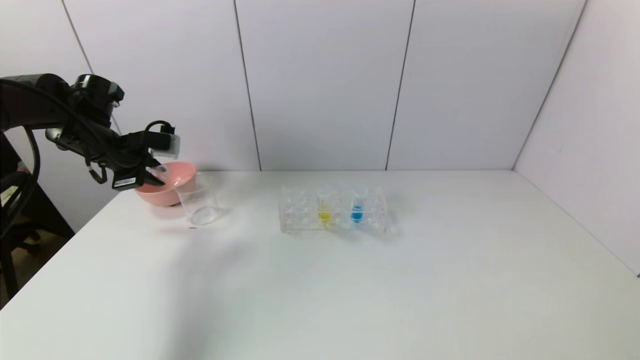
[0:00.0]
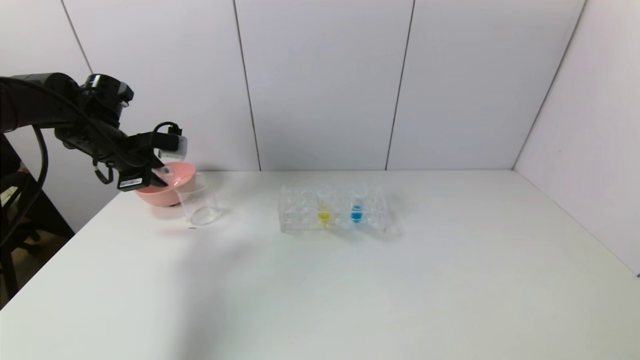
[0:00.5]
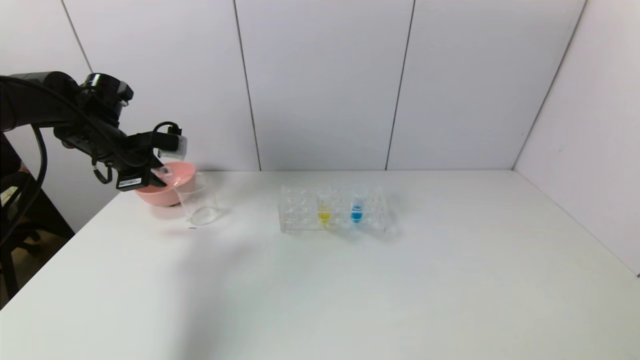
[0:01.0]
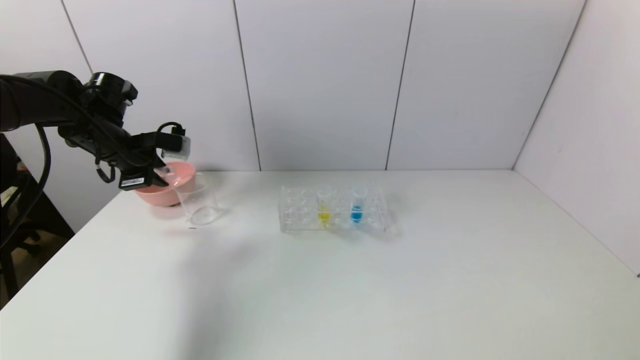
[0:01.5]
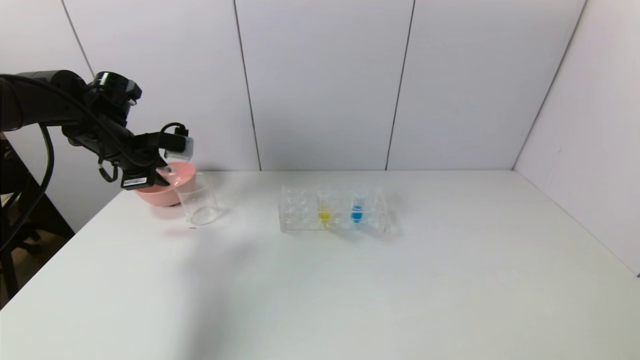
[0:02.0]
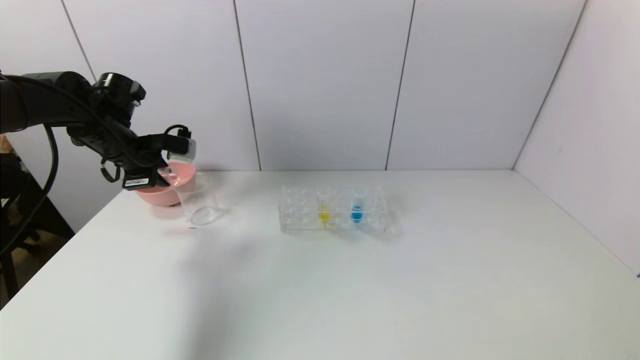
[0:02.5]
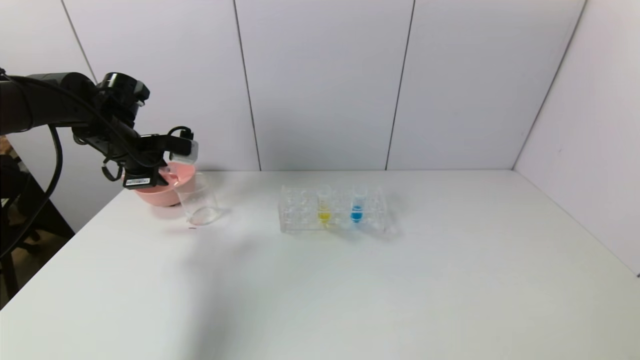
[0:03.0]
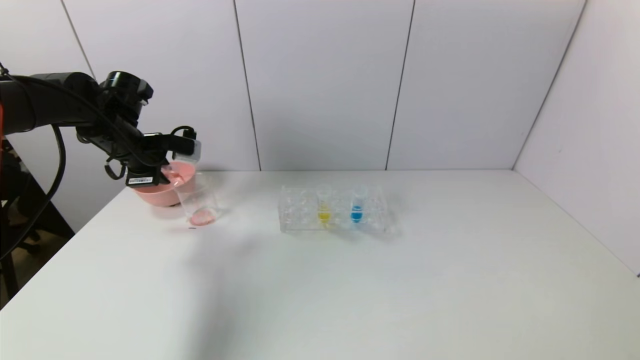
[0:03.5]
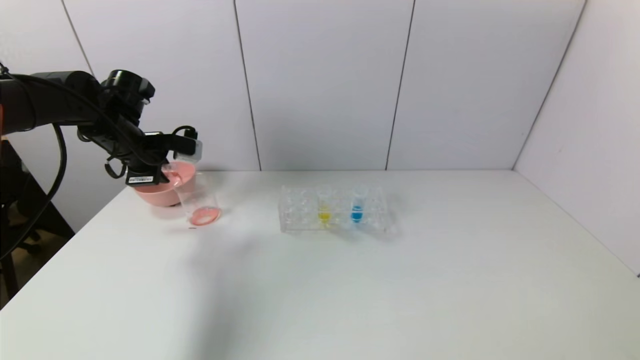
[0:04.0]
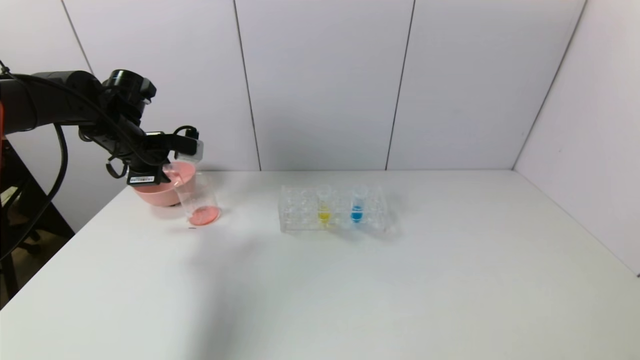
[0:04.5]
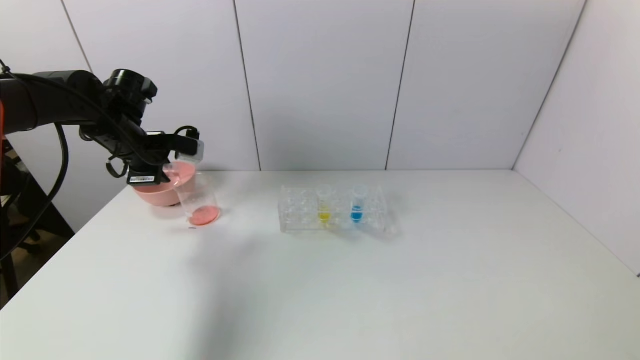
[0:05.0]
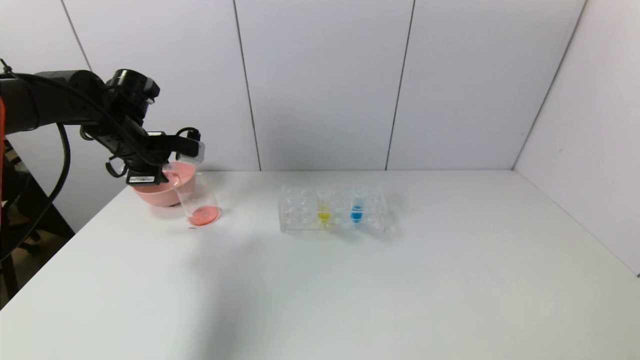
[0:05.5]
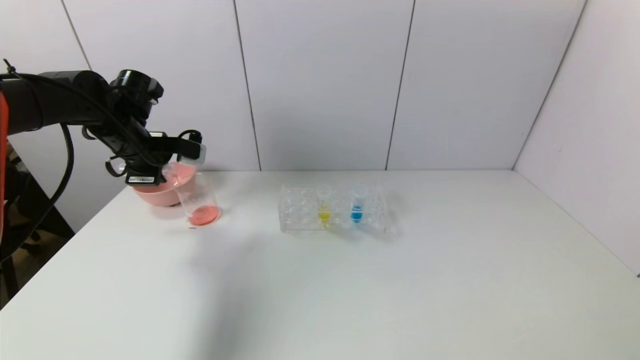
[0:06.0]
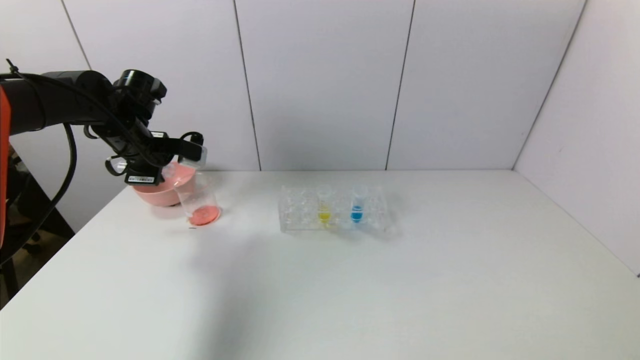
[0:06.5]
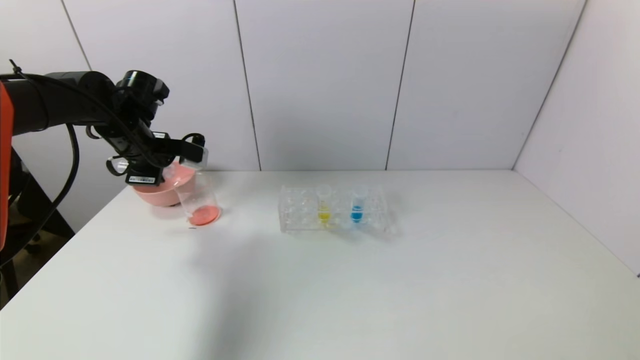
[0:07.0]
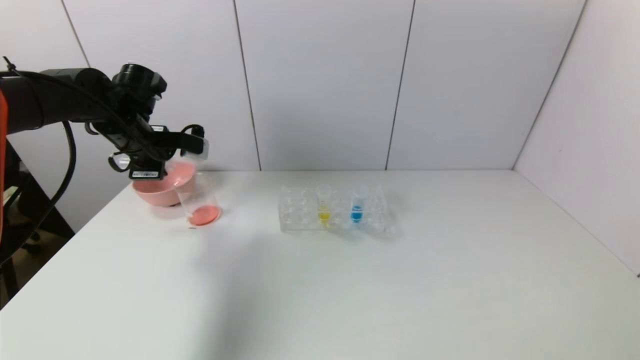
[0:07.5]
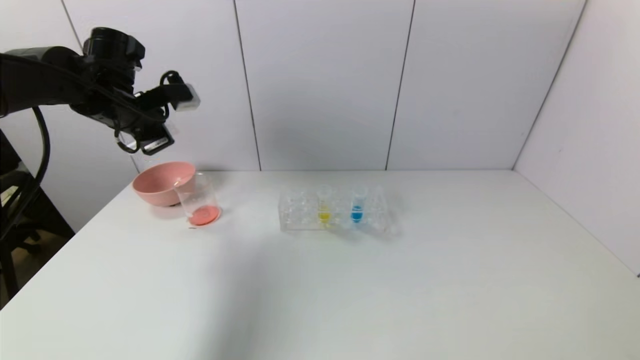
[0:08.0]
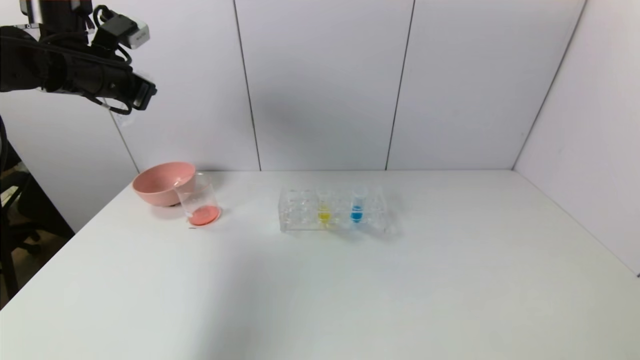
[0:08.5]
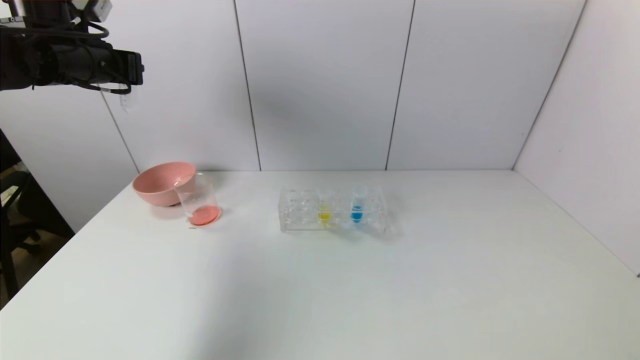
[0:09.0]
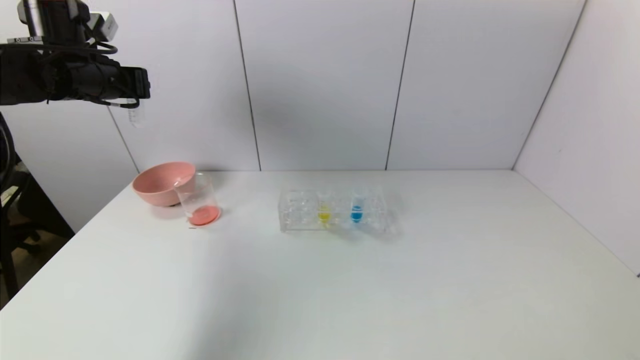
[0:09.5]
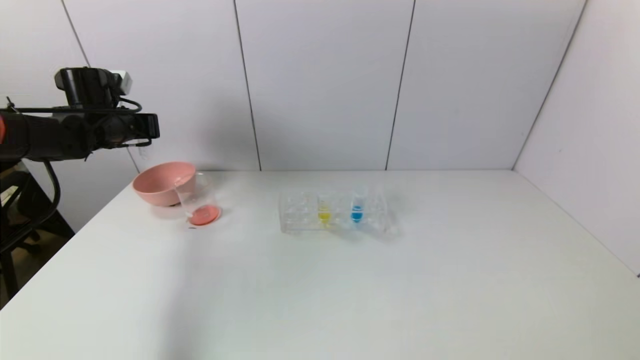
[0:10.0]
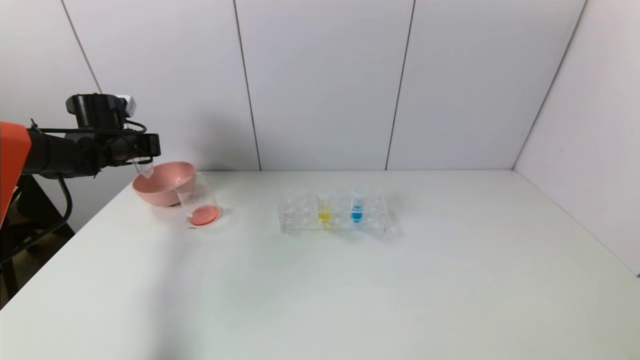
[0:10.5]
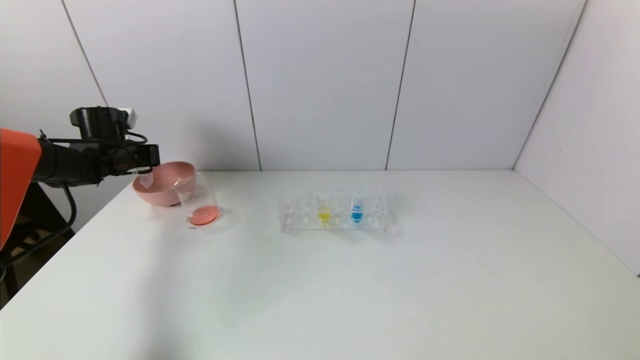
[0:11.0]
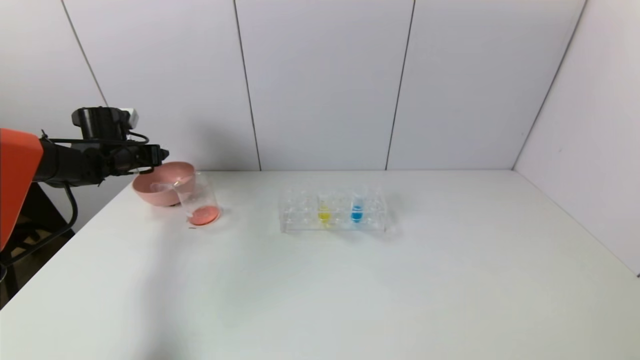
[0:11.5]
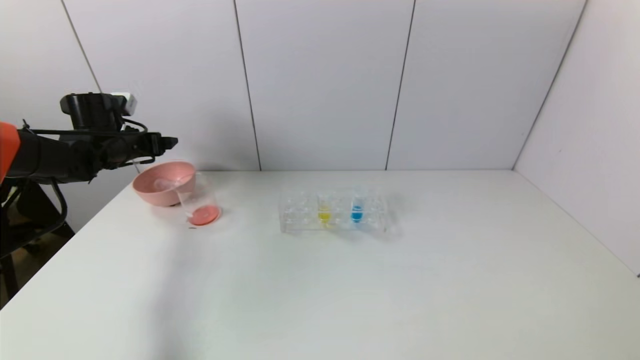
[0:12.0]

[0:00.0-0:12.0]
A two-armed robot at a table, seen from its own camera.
Task of the whole recording: pick up the test tube with red pigment and the test tube with blue pigment by grippers and pour them into the container.
Step, 0:00.0 to 0:08.0: Pour the red reagent into the graduated cylinder with the left gripper.
0:00.0 to 0:06.0: The grippers make only small movements.
0:06.0 to 0:08.0: The left gripper goes about 5 cm upward.
0:08.0 to 0:10.0: The left gripper travels to the left and downward by some 10 cm.
0:10.0 to 0:12.0: The left gripper opens its fingers.

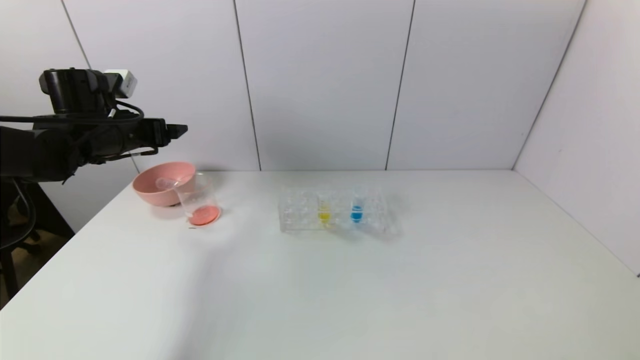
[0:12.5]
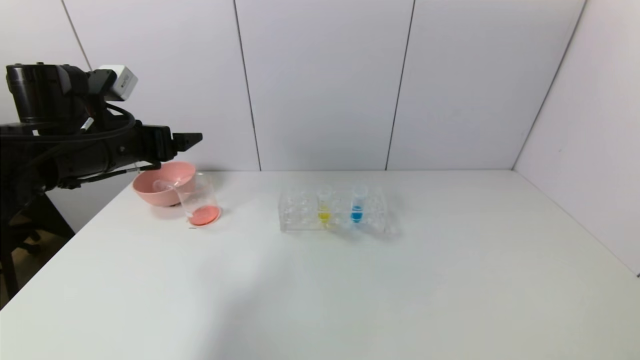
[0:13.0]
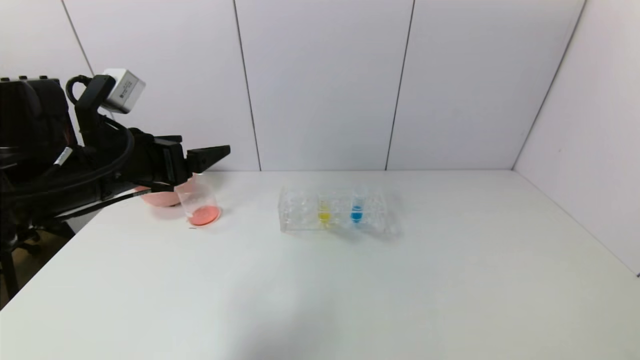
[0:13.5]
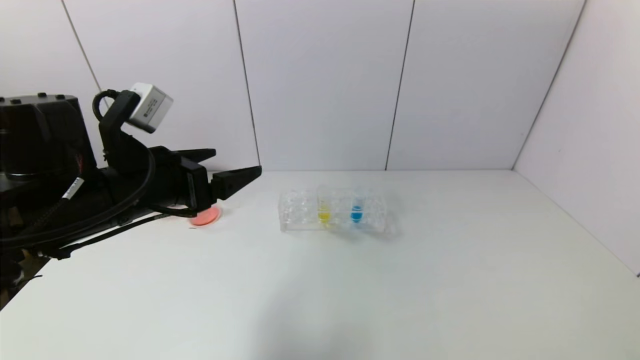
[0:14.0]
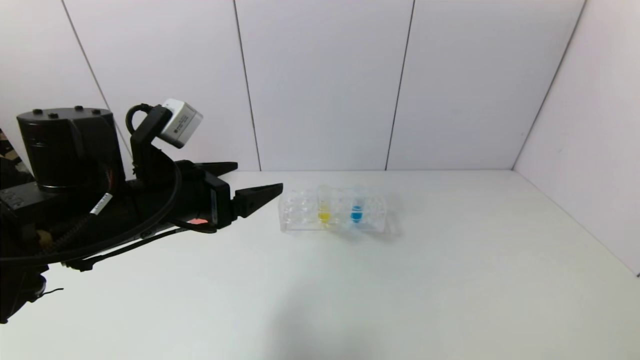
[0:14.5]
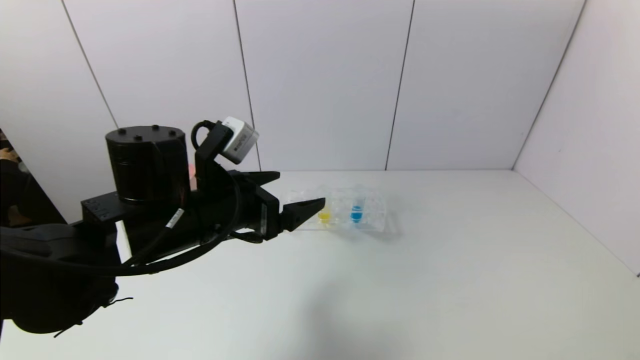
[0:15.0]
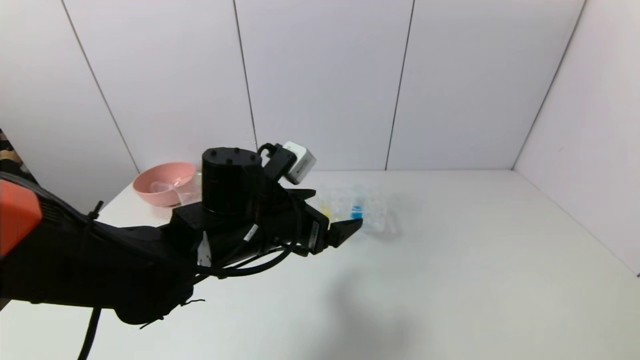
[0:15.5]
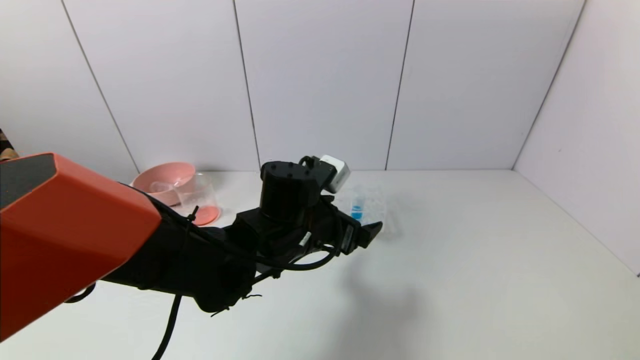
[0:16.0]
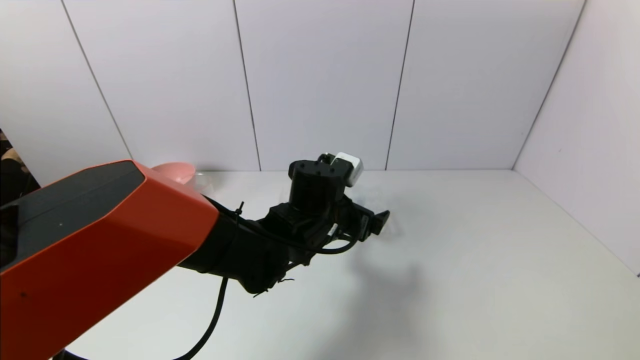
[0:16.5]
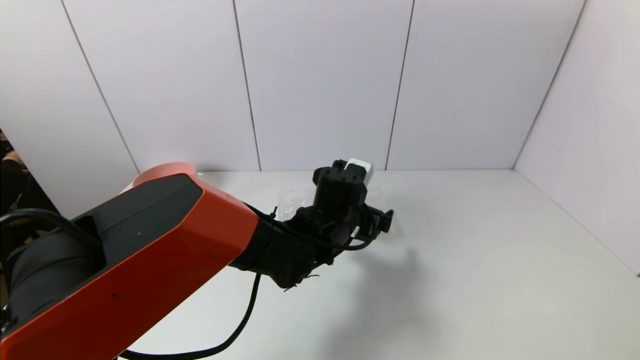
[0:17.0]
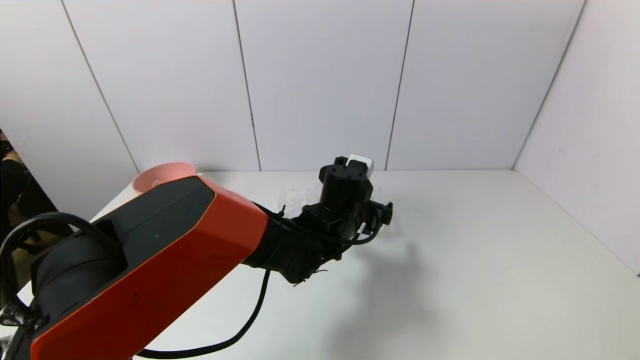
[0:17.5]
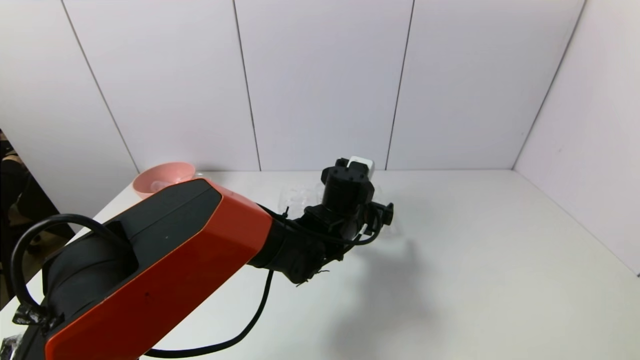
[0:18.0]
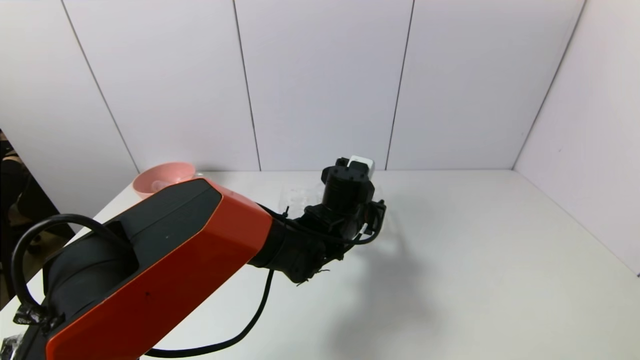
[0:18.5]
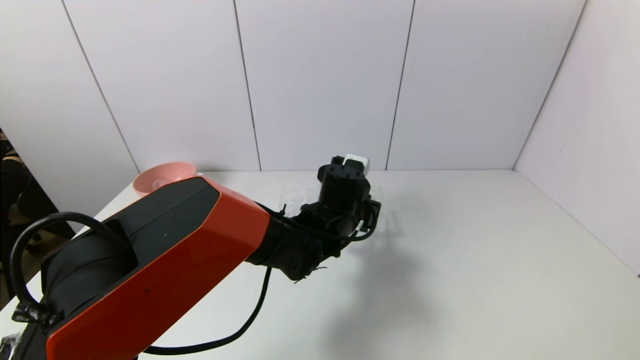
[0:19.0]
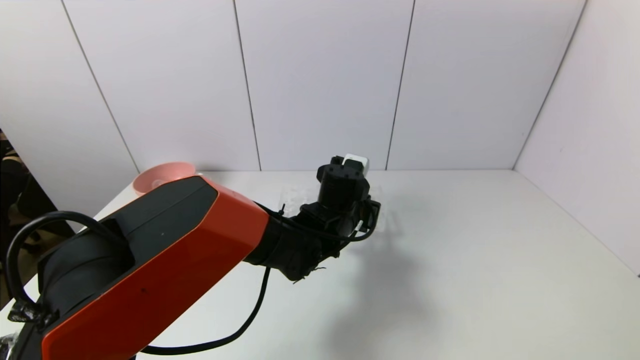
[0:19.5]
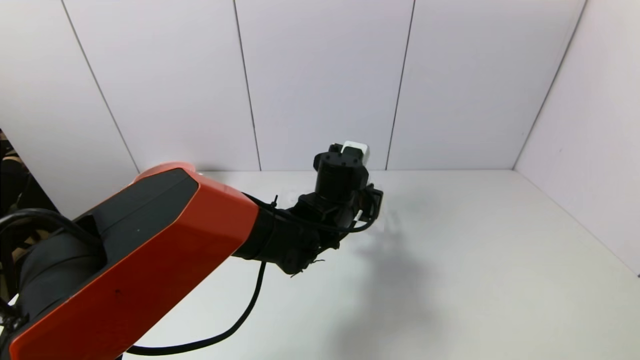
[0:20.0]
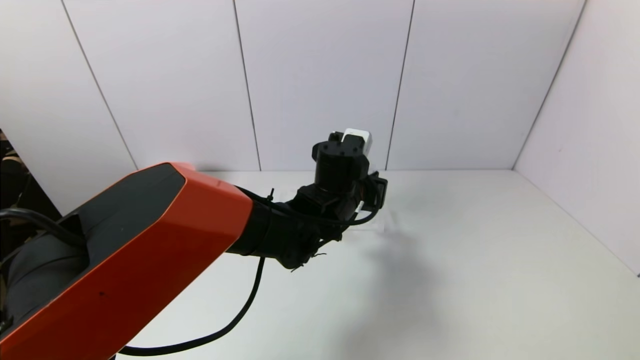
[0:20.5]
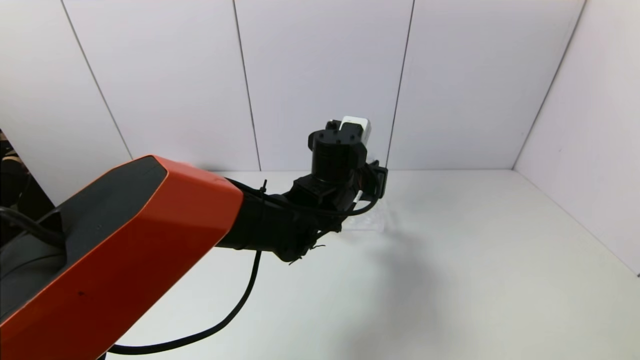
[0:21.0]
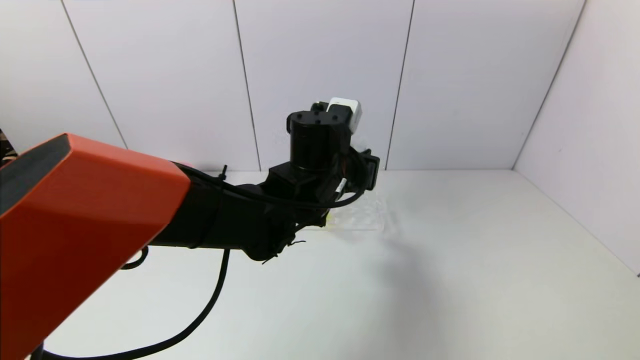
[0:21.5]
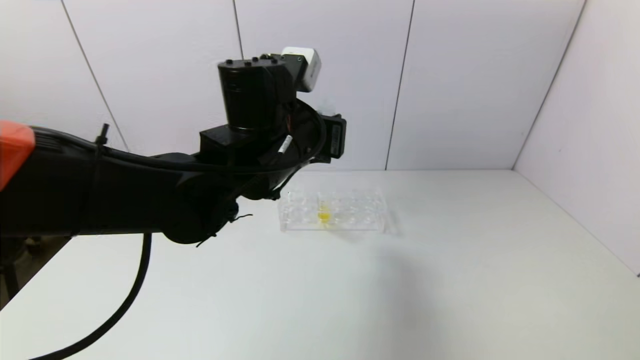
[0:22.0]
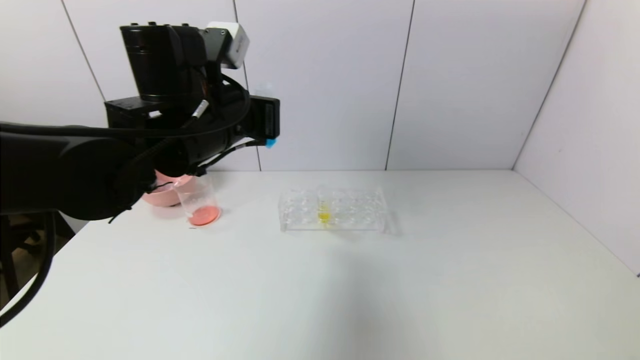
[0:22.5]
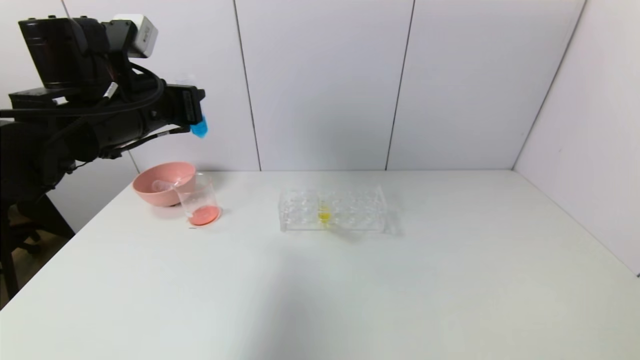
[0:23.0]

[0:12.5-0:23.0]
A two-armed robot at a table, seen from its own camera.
Task of the whole recording: pick up the test tube with red pigment and the test tube with blue pigment by grippers and pour them into the container.
Step, 0:12.5 to 0:19.0: Grasp the blue reagent with the left gripper.
0:12.5 to 0:14.5: The left gripper travels backward and to the right by approximately 20 cm.
0:14.5 to 0:16.5: The left gripper shifts roughly 20 cm to the right, downward and forward.
0:16.5 to 0:19.0: The left gripper shifts by approximately 5 cm, and closes its fingers.
0:19.0 to 0:21.0: The left gripper travels upward by roughly 5 cm.
0:21.0 to 0:23.0: The left gripper goes about 30 cm to the left and upward.
